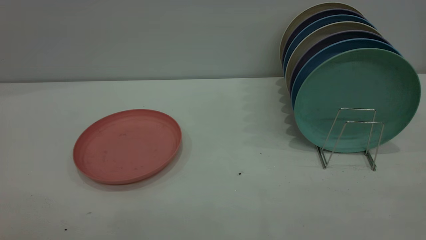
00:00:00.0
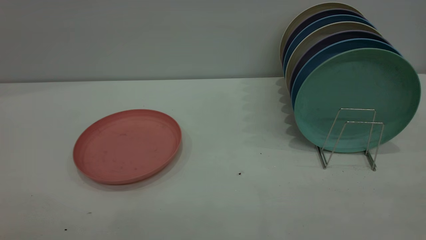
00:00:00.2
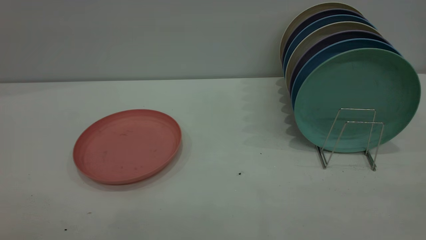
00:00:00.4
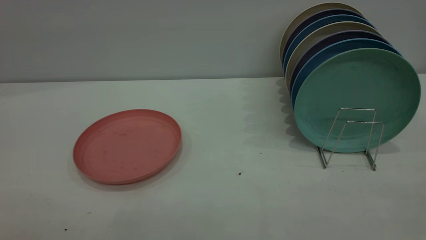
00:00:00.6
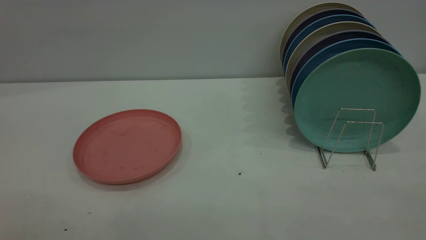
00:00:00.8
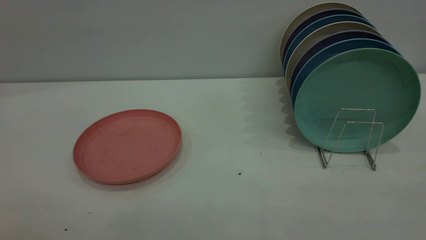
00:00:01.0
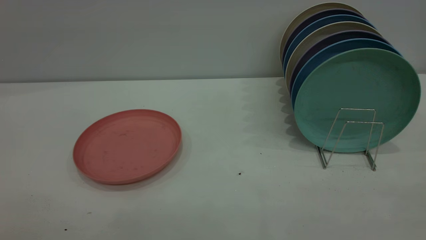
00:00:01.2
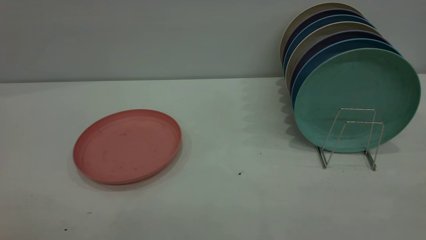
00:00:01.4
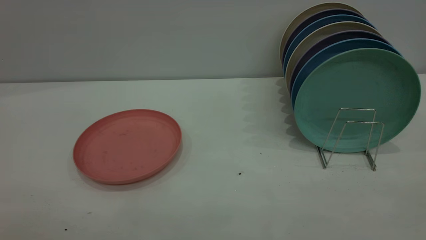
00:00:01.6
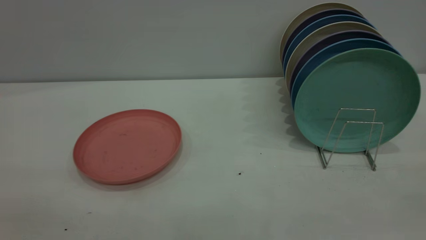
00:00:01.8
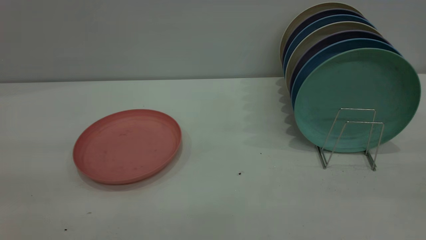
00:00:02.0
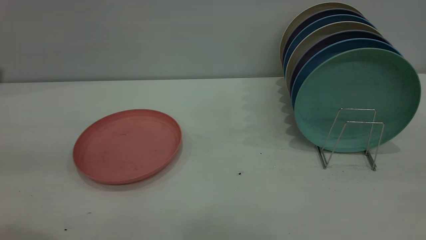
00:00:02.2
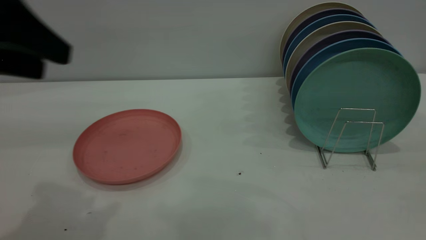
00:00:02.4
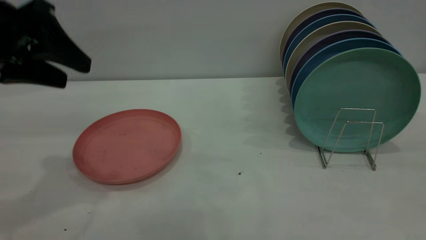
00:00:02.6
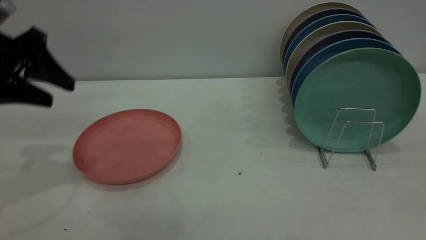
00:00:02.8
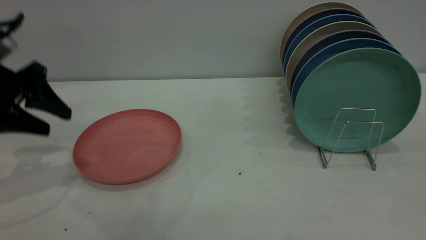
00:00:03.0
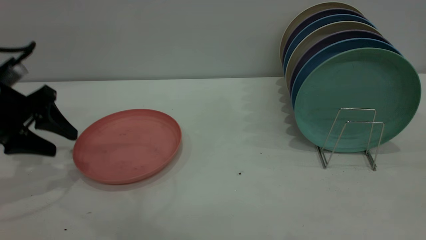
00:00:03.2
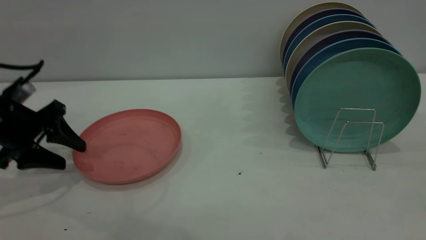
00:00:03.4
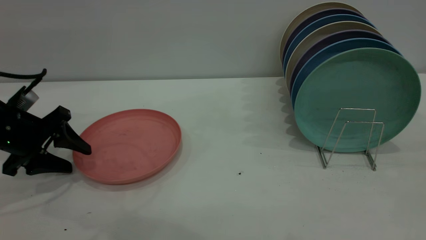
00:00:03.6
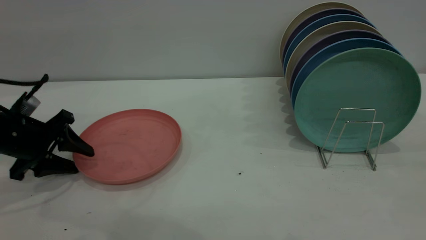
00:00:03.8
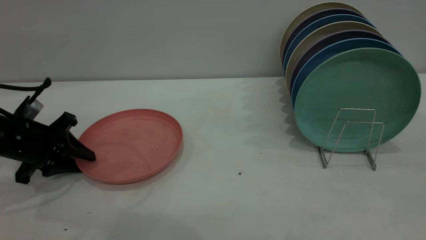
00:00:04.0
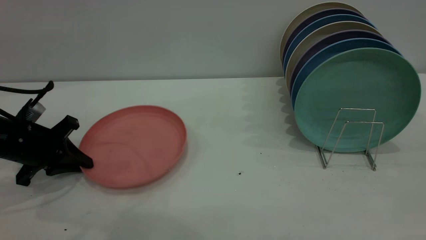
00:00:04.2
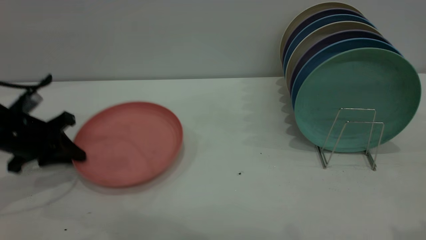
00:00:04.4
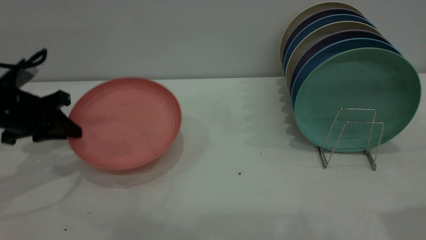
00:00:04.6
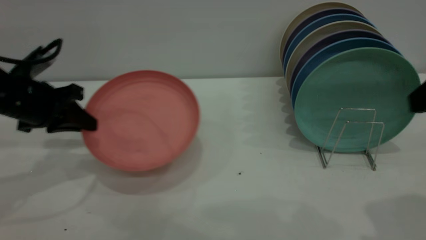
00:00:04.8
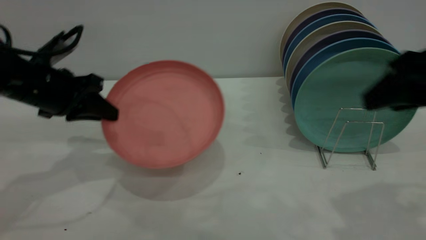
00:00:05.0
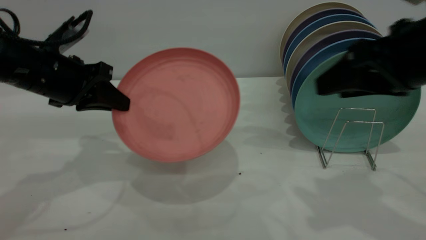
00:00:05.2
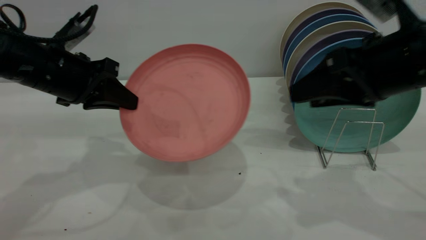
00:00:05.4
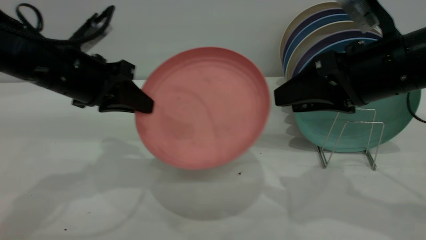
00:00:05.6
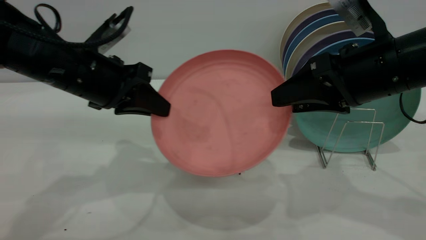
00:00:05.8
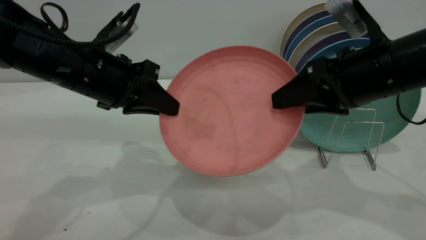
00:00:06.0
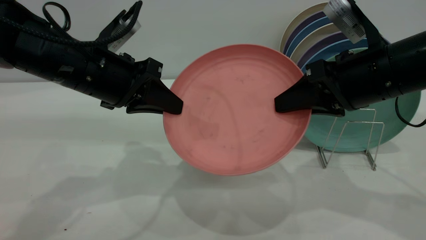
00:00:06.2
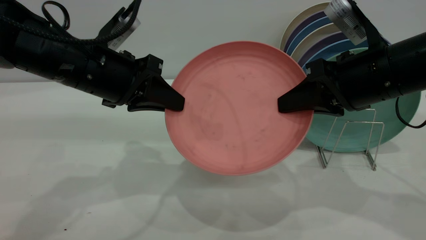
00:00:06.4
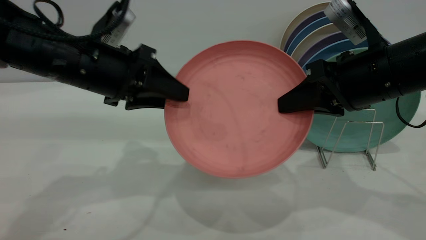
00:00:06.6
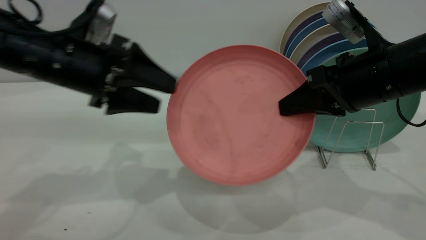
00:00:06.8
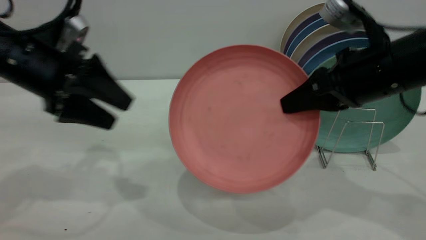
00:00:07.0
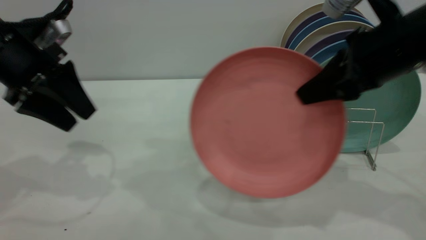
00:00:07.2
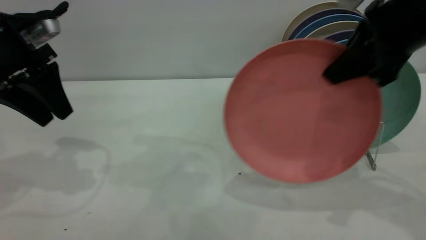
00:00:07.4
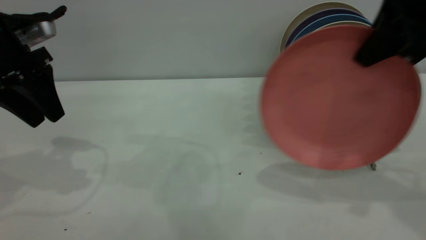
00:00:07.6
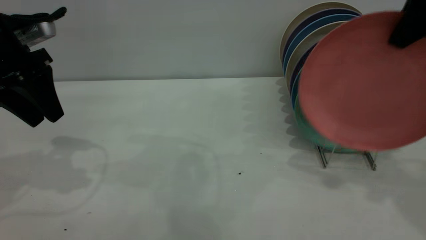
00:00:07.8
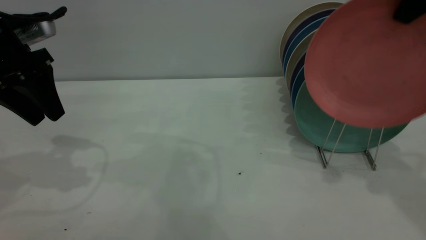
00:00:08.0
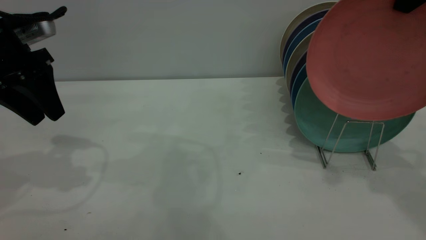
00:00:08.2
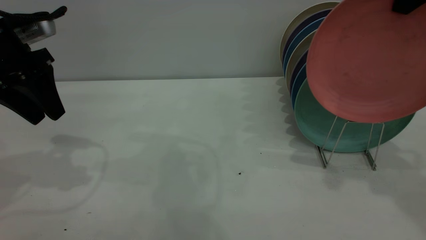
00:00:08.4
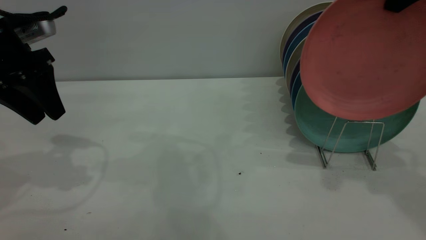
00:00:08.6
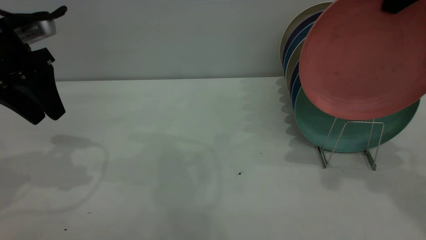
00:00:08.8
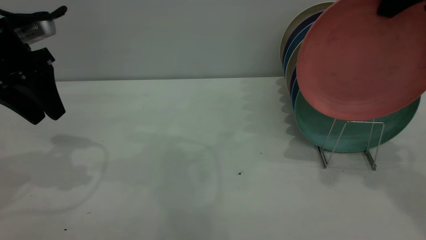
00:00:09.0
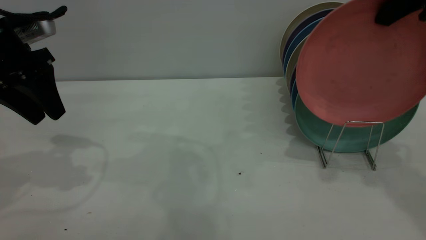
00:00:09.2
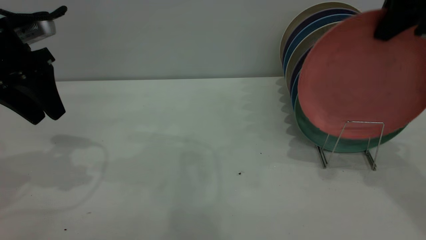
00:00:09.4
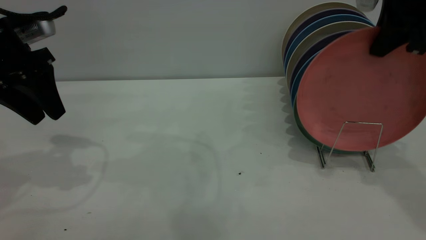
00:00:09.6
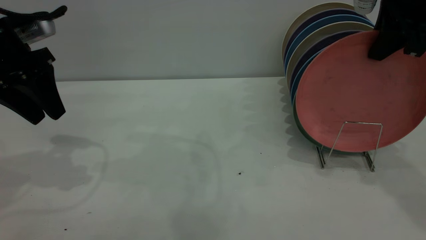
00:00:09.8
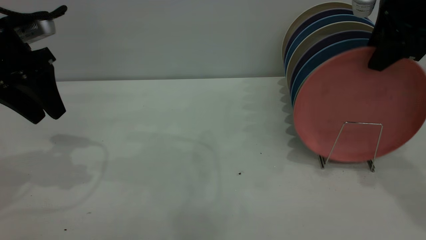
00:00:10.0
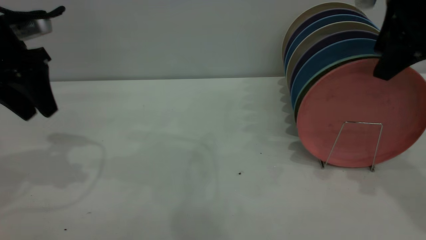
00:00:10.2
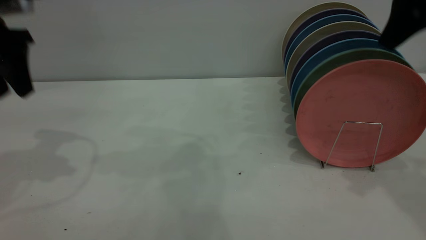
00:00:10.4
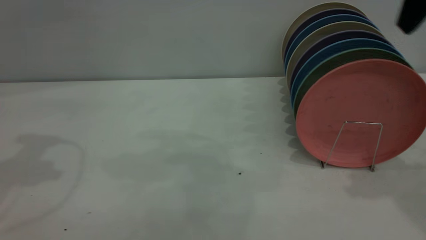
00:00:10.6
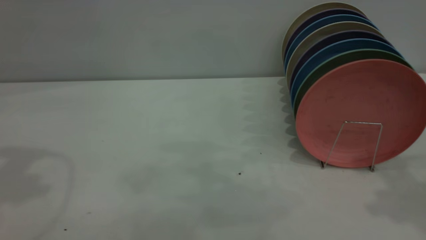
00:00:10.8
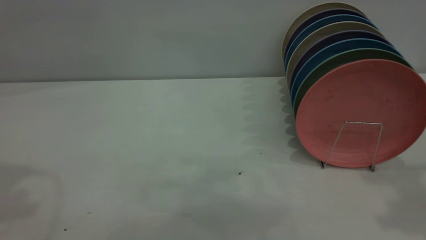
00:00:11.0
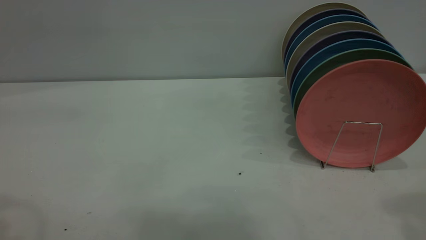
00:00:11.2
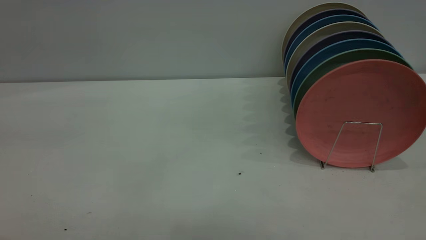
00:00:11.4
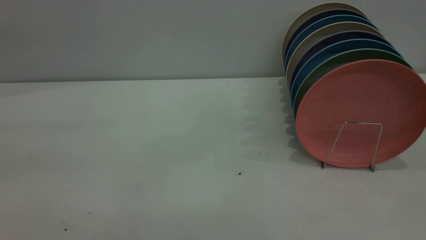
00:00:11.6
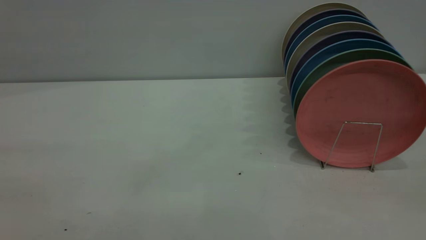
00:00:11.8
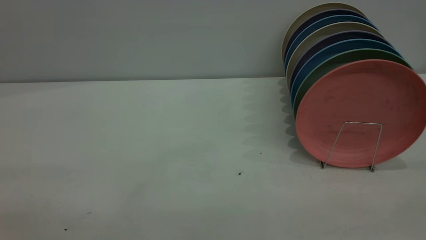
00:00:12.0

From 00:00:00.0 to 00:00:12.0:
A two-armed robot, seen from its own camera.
Task of the whole recording: the left gripper grasp the pink plate, the left gripper pass the pink plate to the right gripper, and the right gripper place the pink plate on the plate rack.
Step, from 00:00:00.0 to 00:00:04.4: Pick up the plate with the left gripper.
Step, from 00:00:04.6 to 00:00:06.8: Pass the plate from the left gripper to the right gripper.
Step, from 00:00:07.0 to 00:00:10.4: Place the plate on the shelf.
From 00:00:01.6 to 00:00:03.0: The left gripper is displaced forward and downward by about 40 cm.
From 00:00:03.0 to 00:00:04.4: The left gripper goes approximately 10 cm downward, and closes its fingers.
From 00:00:04.4 to 00:00:06.0: The left gripper heads to the right and upward, covering some 20 cm, while the right gripper travels forward, downward and to the left by about 20 cm.
From 00:00:06.0 to 00:00:07.6: The left gripper travels to the left by about 10 cm, and opens up. The right gripper heads upward, covering approximately 10 cm, and closes up.
From 00:00:07.6 to 00:00:09.0: The right gripper moves roughly 5 cm.
From 00:00:09.0 to 00:00:10.4: The right gripper opens, while the left gripper is displaced upward by roughly 5 cm.
From 00:00:10.4 to 00:00:12.0: The grippers both shift backward by about 35 cm.
